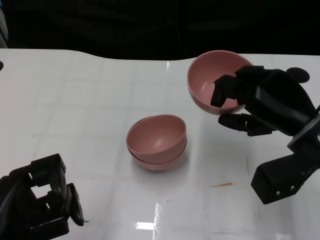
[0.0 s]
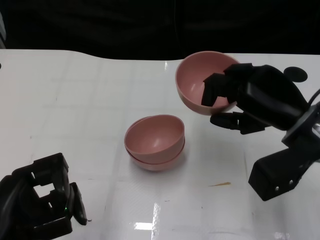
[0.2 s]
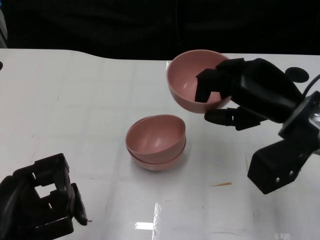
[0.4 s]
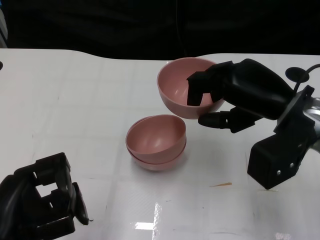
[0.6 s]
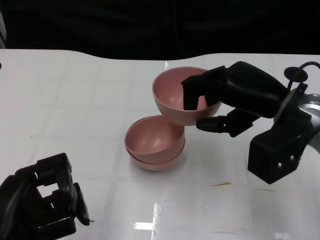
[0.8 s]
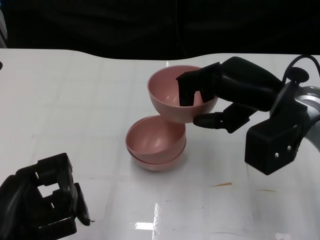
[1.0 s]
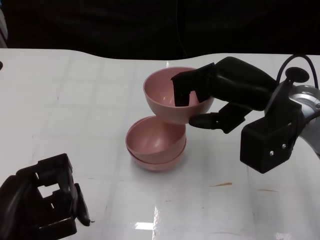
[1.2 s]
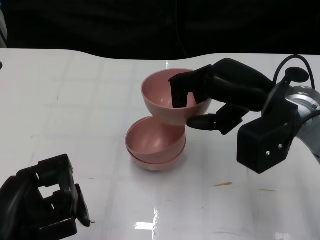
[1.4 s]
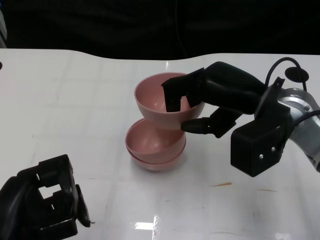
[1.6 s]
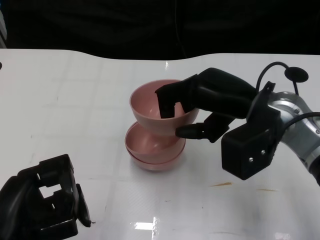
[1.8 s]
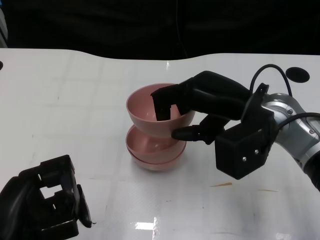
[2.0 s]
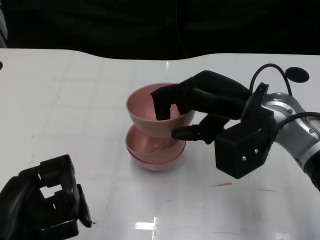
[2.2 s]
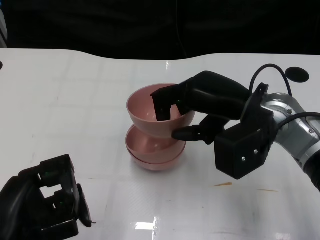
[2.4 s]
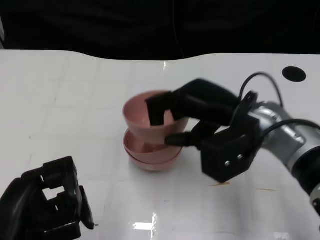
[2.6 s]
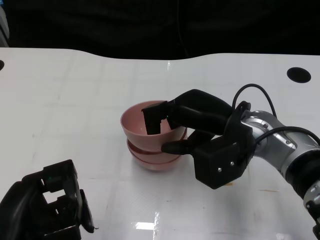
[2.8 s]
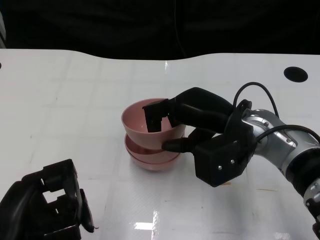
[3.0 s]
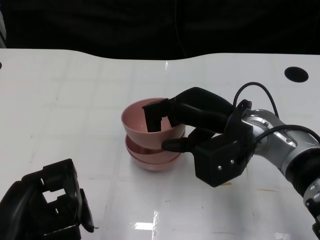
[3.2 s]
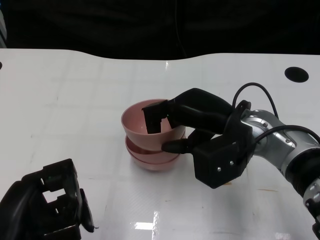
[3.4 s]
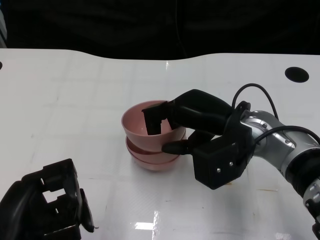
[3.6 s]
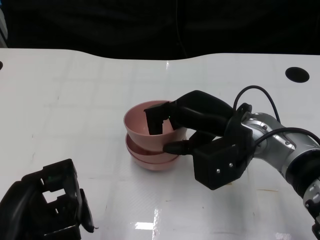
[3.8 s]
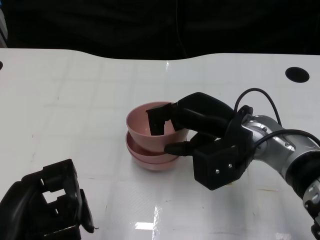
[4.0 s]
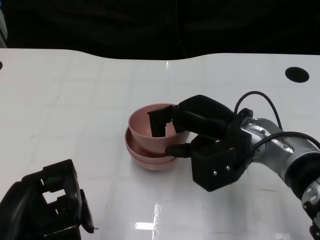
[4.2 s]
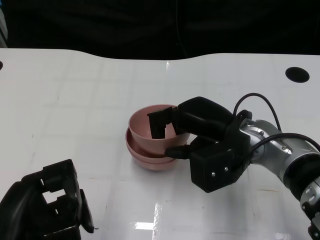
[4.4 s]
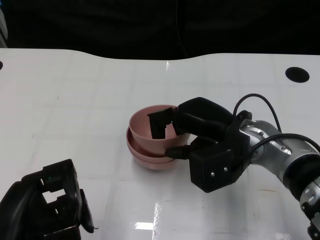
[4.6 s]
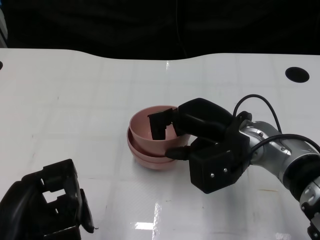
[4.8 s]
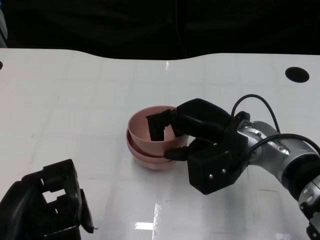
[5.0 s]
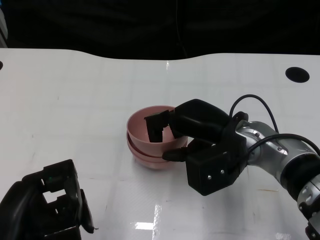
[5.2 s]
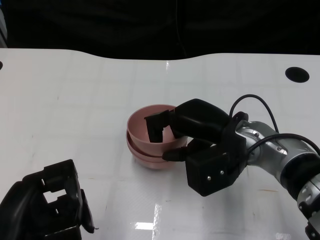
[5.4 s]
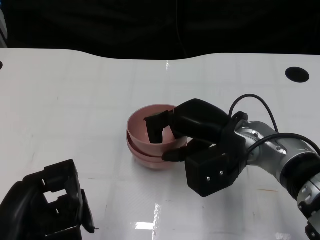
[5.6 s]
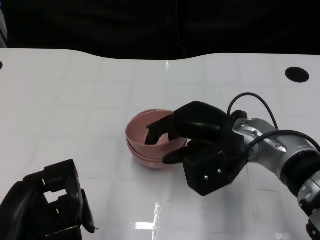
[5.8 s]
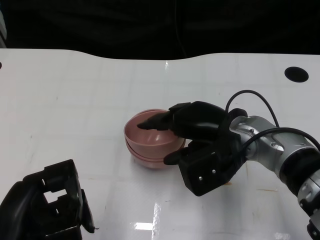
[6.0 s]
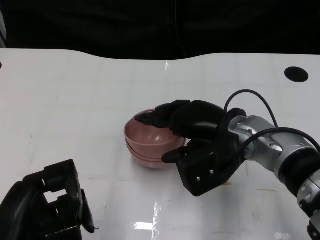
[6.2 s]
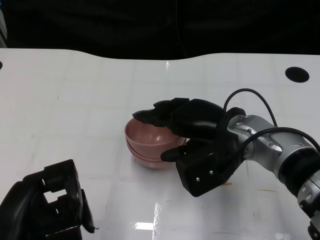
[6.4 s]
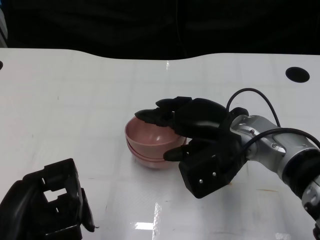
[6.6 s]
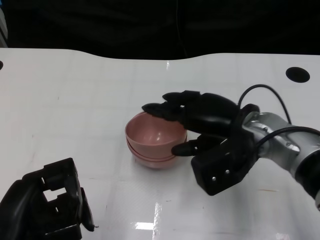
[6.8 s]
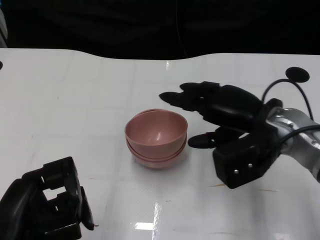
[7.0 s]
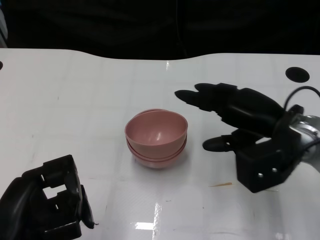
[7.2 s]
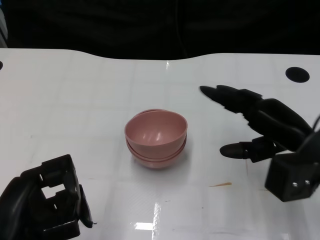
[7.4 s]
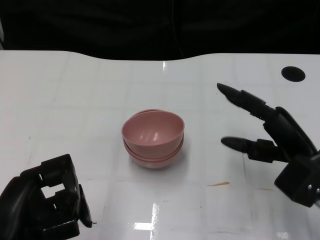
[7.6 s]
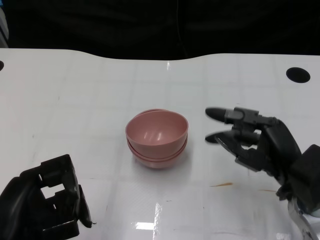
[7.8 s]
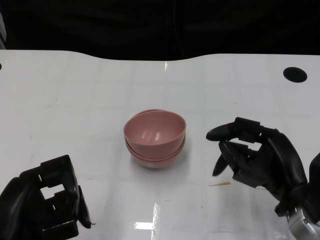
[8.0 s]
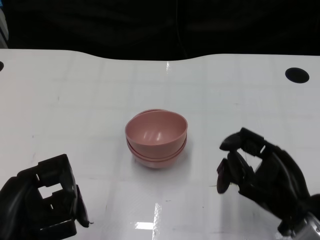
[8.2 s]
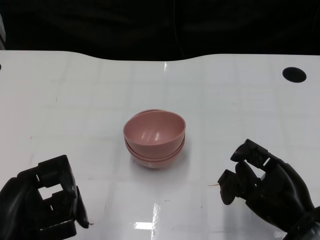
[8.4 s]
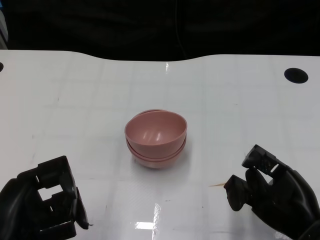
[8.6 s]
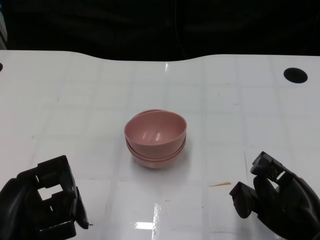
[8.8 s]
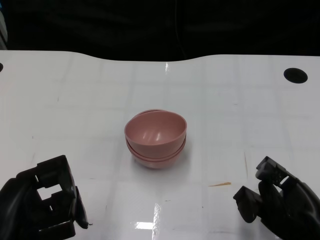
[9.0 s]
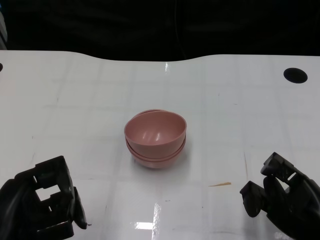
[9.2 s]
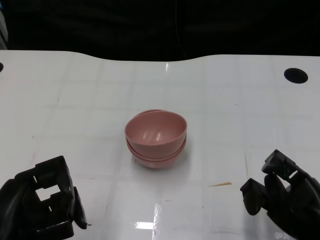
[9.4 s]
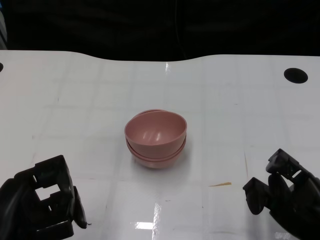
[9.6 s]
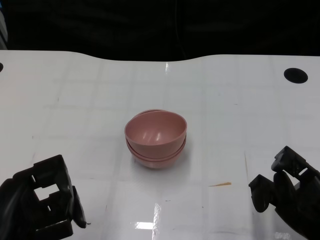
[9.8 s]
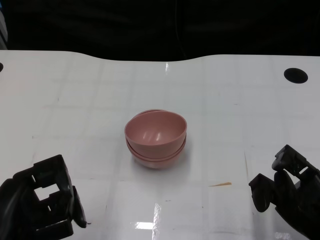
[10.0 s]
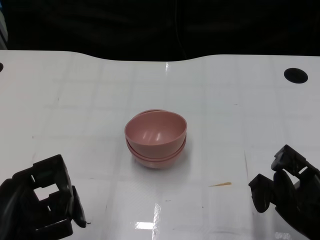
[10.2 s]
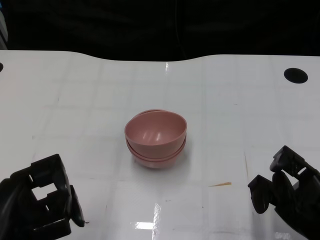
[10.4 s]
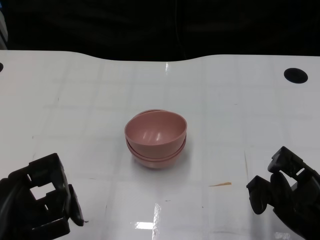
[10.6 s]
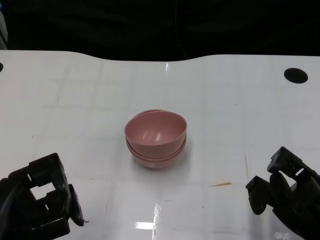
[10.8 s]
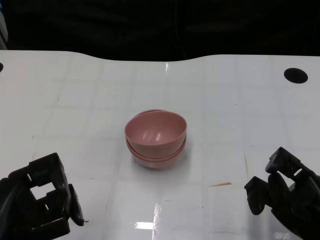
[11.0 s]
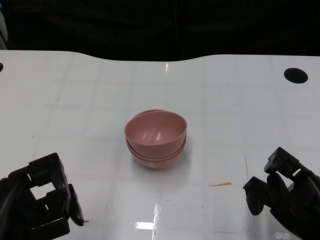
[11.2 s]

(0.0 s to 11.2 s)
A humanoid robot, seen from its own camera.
Task of the whole recording: Pick up the bowl on one side of the table and place it on top of the middle bowl, then pick up the bowl on the other side of the table and place it on top of the middle bowls.
Step, 0.0 s - 6.4 s: Place the bowl on the right onto the bowl in the middle with right gripper.
0.0 s - 1.6 s: The right hand heads to the left, covering roughly 5 cm.
1.6 s - 3.2 s: The right hand changes place by roughly 5 cm.
3.2 s - 6.4 s: The hands move only a little.
6.4 s - 8.0 s: The right hand is displaced to the right and backward by some 15 cm.
8.0 s - 9.6 s: The right hand heads backward, covering some 5 cm.
9.6 s - 11.2 s: The two hands keep their place.

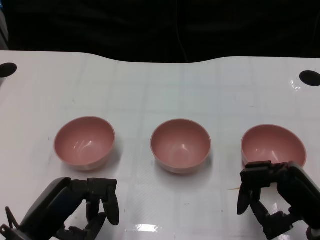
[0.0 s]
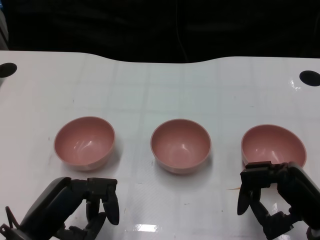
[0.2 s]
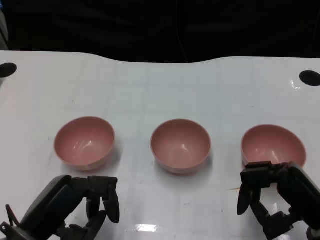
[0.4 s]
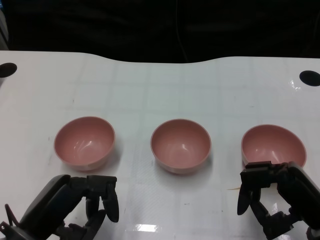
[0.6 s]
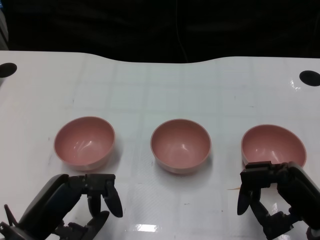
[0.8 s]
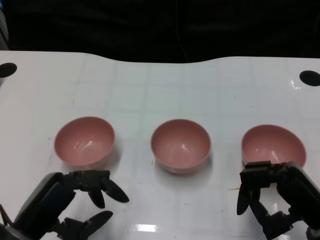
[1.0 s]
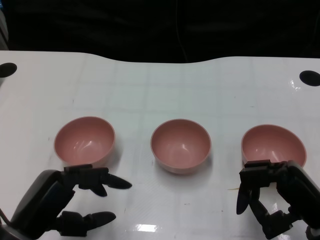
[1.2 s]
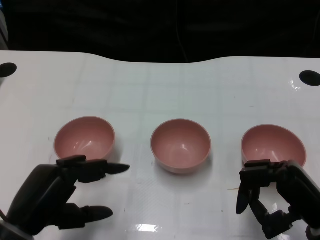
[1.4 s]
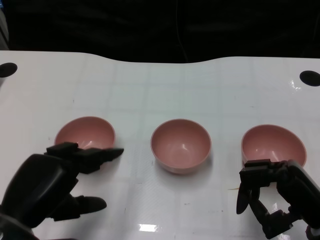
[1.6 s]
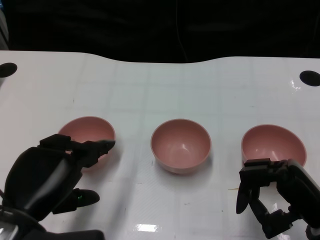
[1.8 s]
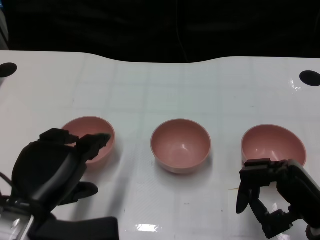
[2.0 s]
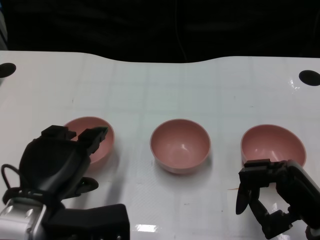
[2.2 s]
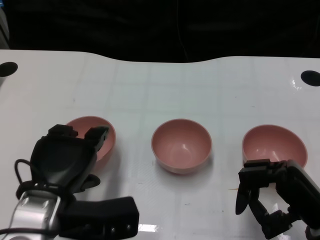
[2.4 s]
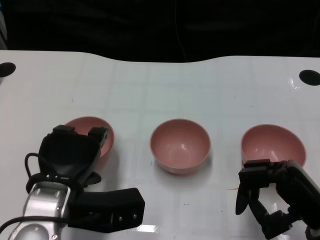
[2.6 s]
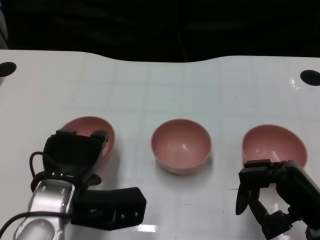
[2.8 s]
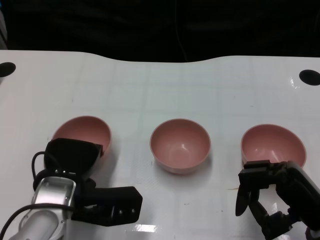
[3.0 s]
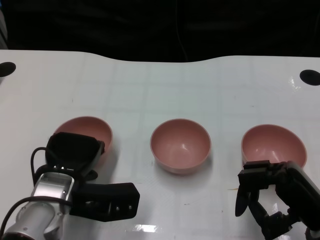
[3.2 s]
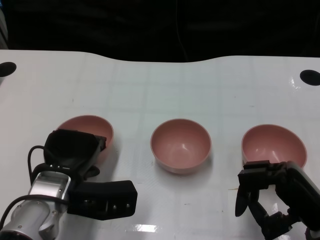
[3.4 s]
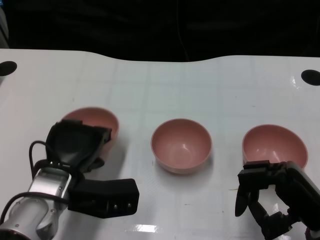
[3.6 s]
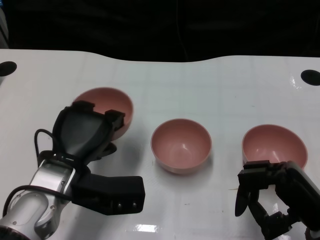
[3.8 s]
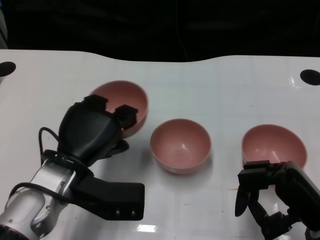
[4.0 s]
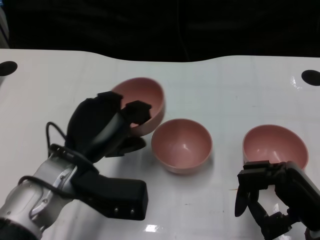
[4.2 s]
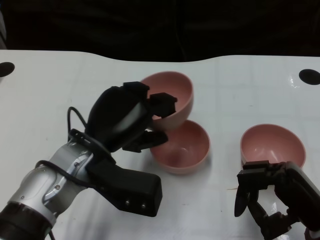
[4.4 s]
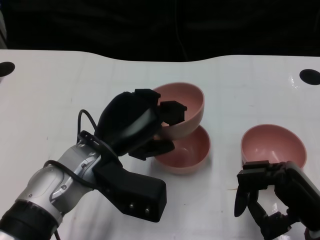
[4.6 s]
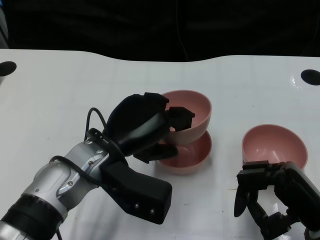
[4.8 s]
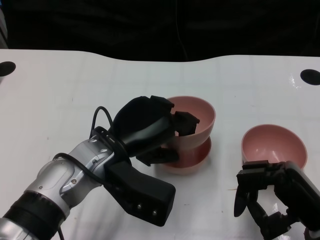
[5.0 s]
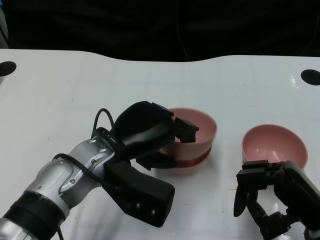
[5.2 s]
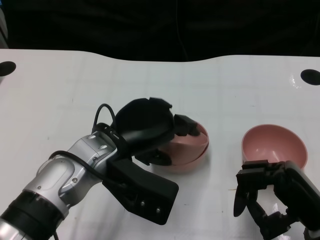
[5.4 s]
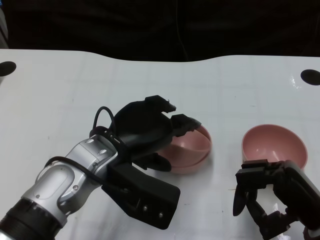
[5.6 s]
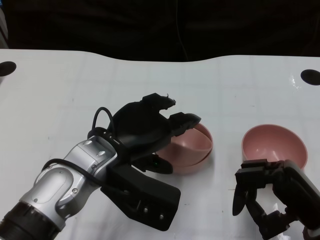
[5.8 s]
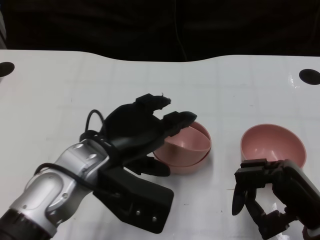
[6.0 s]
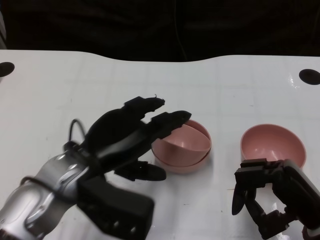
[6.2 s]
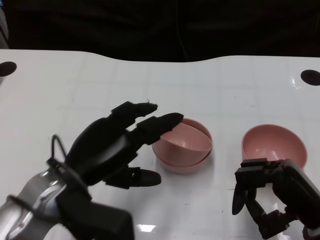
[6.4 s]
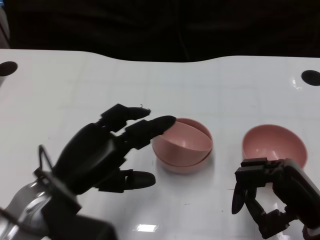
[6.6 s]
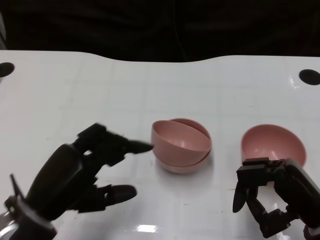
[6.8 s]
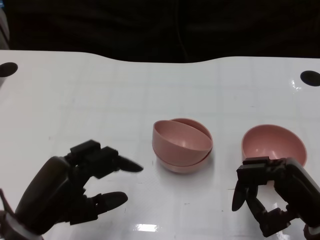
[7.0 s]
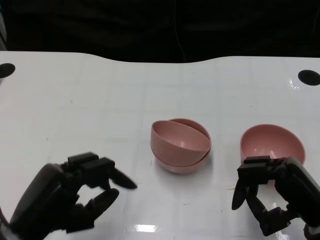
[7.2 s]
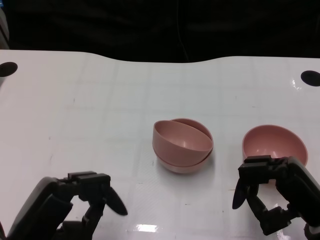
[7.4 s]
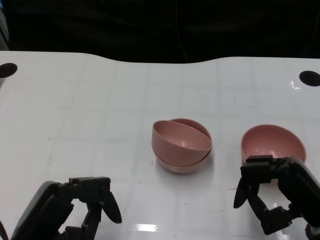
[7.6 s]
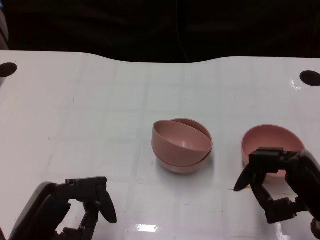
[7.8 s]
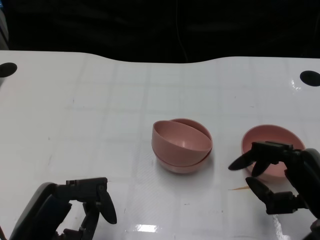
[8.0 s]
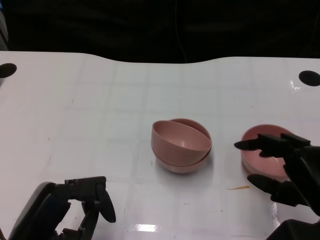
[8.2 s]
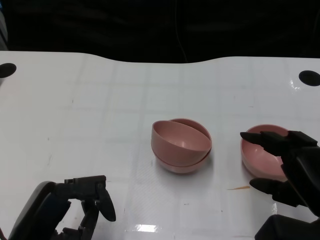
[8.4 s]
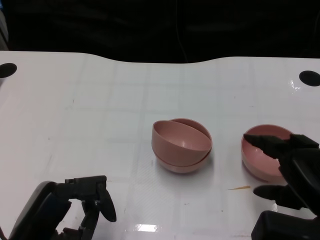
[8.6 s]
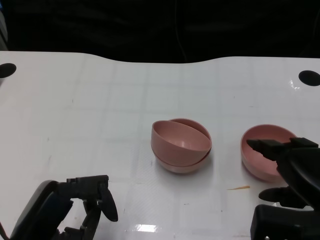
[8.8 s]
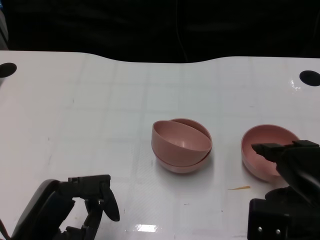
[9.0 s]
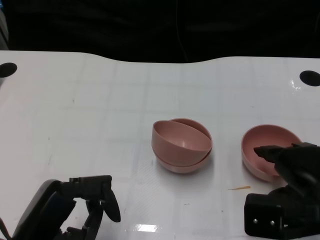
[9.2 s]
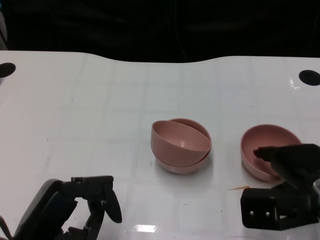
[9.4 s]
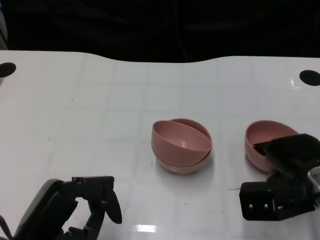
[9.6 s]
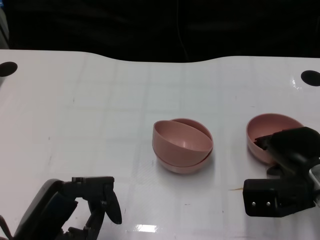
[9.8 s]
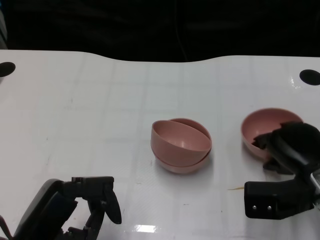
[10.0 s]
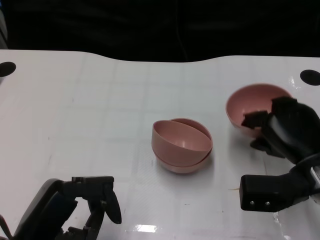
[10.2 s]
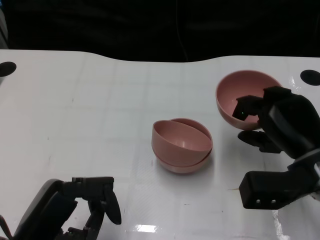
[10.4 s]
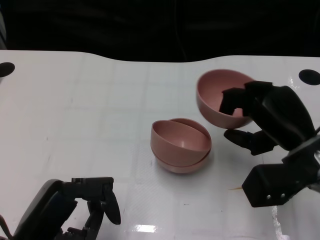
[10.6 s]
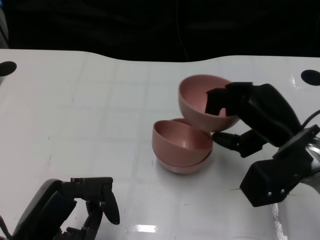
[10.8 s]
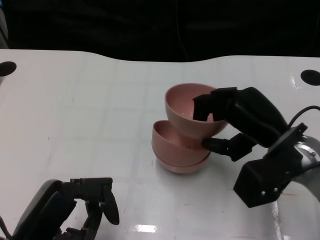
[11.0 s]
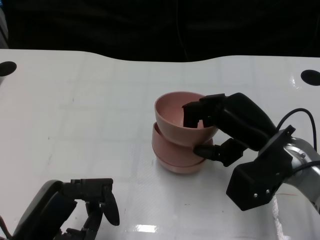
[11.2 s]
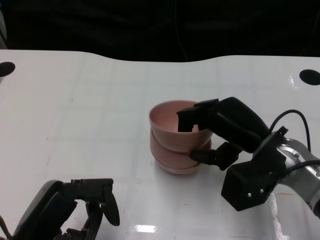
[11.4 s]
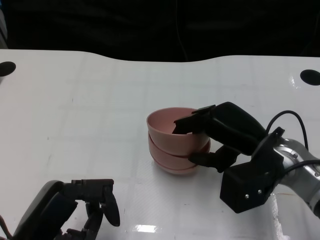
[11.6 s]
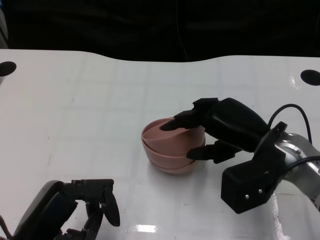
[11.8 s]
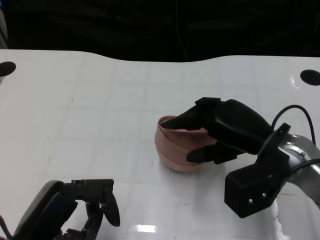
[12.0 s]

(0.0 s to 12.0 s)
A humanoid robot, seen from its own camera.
Task of the whole recording: Pick up the bowl on one side of the table and place it on top of the middle bowl, then pick up the bowl on the other side of the table and place it on top of the middle bowls.
Step, 1.0 s - 3.6 s: Grasp the bowl on the left with the left gripper.
Step, 3.8 s - 5.8 s: Place the bowl on the left onto the bowl in the middle with left gripper.
Step, 6.0 s - 10.0 s: Grasp the bowl on the right with the right gripper.
1.6 s - 3.0 s: The left hand travels forward and to the right by approximately 10 cm.
3.0 s - 4.4 s: The left hand moves upward, some 5 cm.
6.0 s - 7.6 s: The left hand travels backward, to the left and downward by some 15 cm.
9.0 s - 10.4 s: The right hand goes approximately 5 cm forward.
10.4 s - 12.0 s: The right hand shifts by approximately 5 cm.
